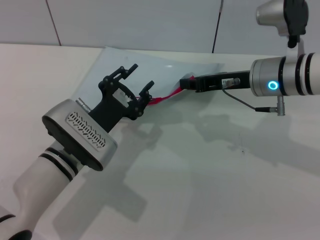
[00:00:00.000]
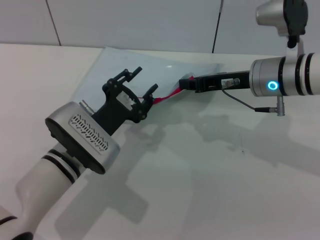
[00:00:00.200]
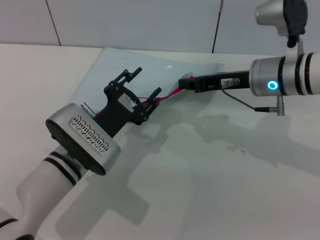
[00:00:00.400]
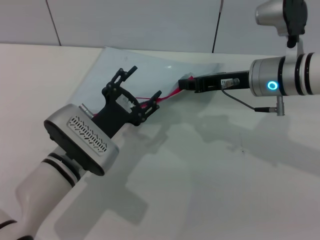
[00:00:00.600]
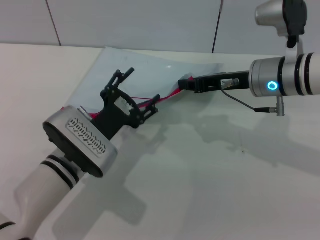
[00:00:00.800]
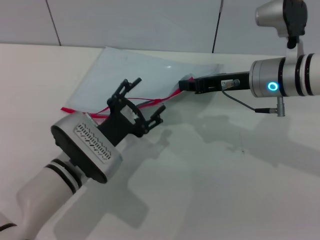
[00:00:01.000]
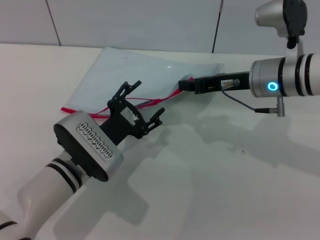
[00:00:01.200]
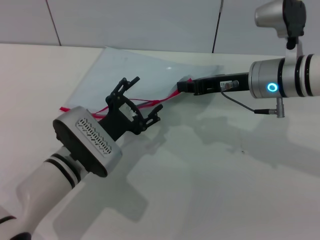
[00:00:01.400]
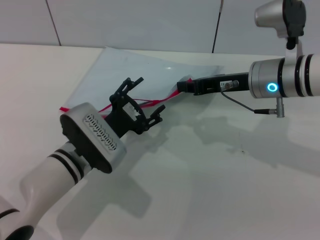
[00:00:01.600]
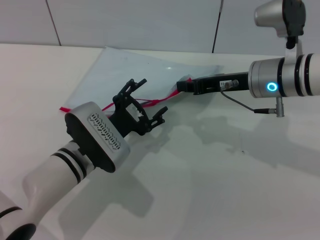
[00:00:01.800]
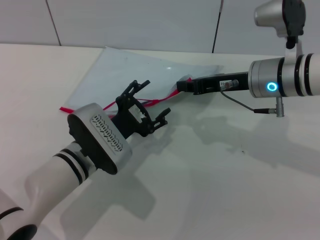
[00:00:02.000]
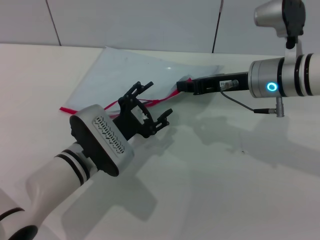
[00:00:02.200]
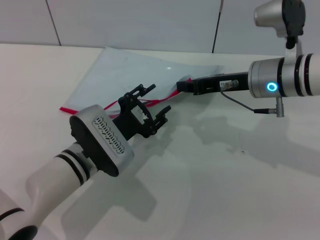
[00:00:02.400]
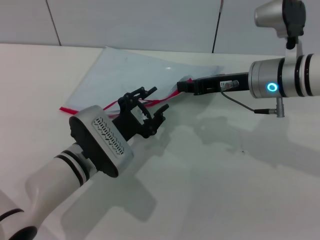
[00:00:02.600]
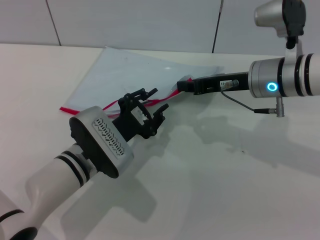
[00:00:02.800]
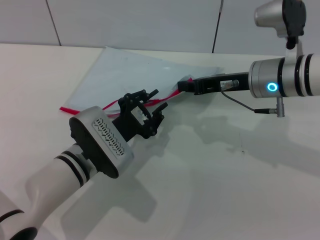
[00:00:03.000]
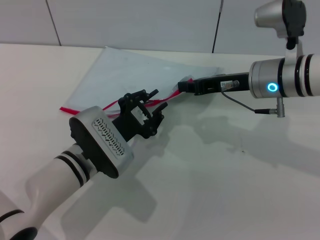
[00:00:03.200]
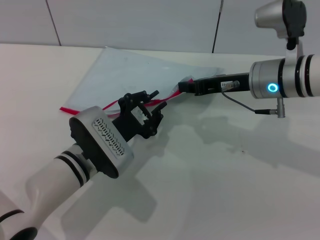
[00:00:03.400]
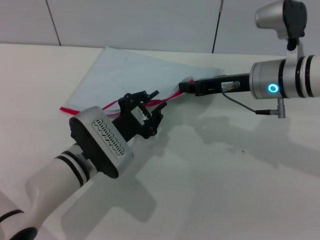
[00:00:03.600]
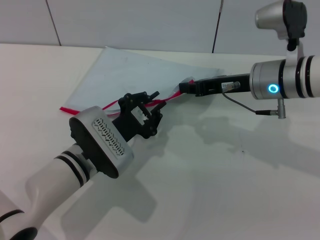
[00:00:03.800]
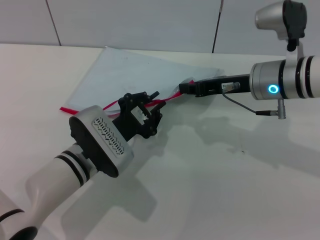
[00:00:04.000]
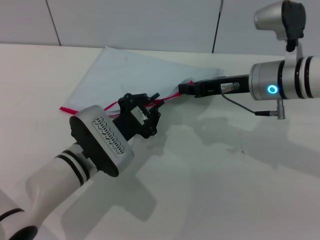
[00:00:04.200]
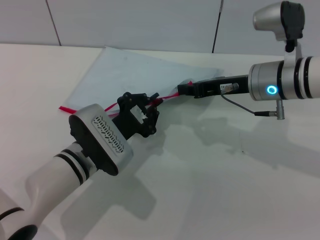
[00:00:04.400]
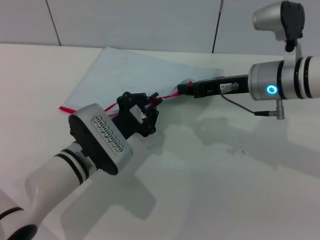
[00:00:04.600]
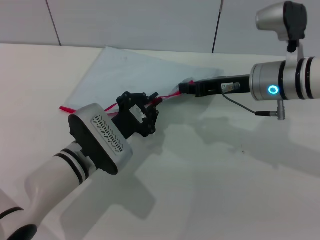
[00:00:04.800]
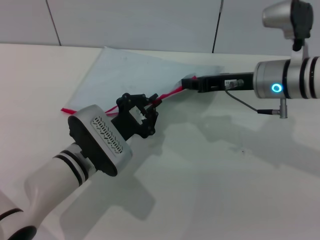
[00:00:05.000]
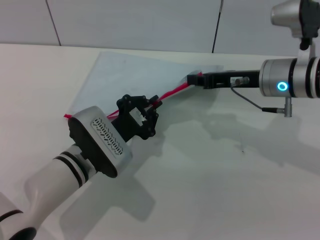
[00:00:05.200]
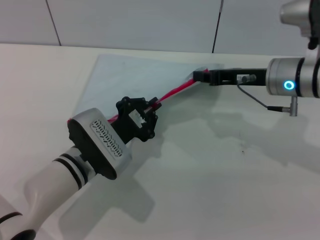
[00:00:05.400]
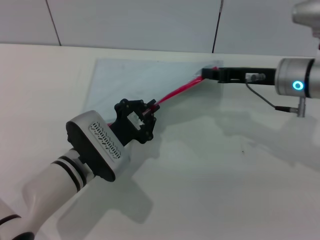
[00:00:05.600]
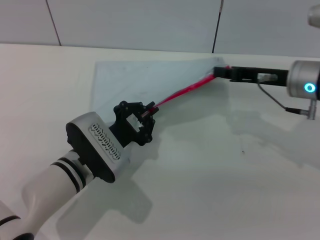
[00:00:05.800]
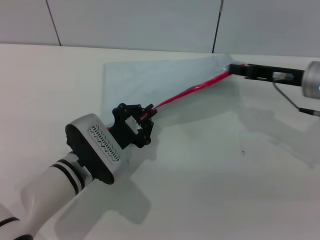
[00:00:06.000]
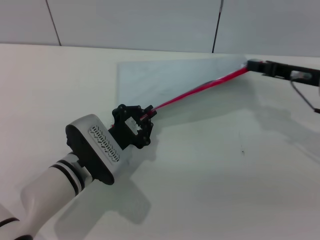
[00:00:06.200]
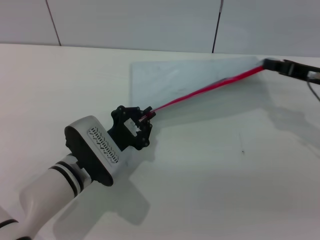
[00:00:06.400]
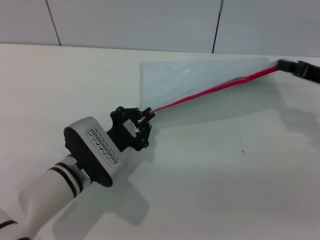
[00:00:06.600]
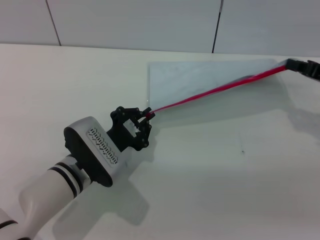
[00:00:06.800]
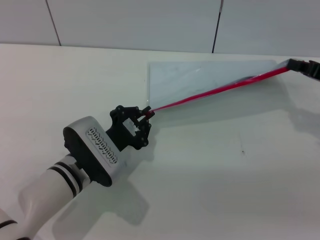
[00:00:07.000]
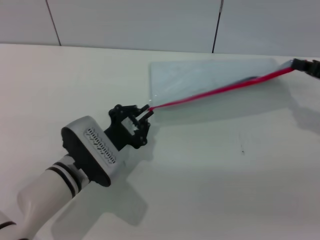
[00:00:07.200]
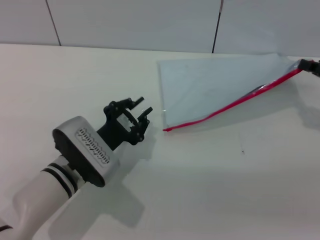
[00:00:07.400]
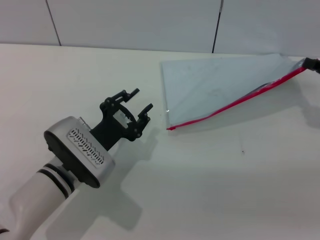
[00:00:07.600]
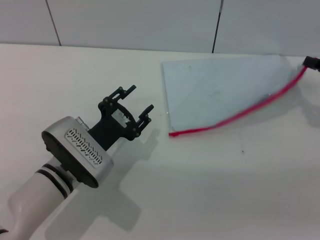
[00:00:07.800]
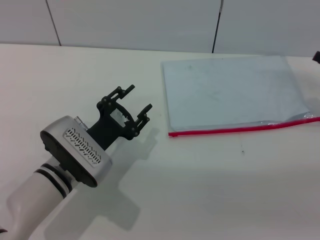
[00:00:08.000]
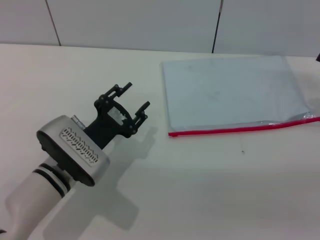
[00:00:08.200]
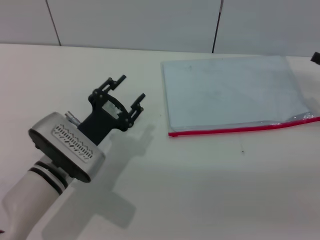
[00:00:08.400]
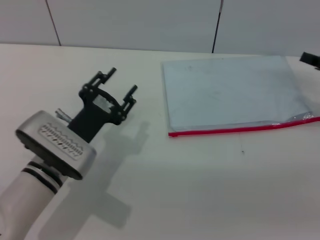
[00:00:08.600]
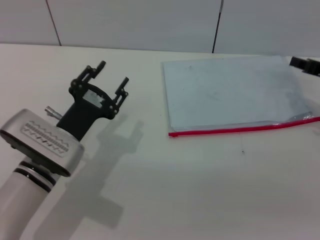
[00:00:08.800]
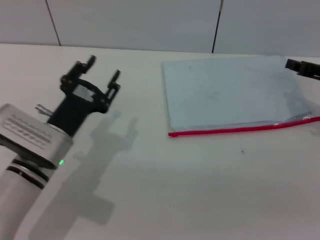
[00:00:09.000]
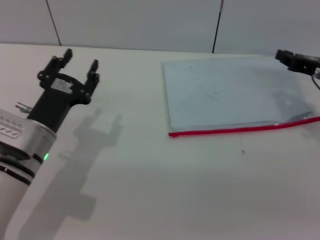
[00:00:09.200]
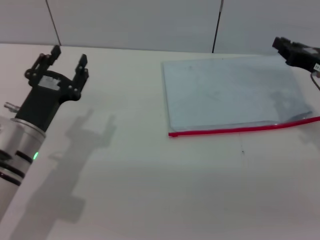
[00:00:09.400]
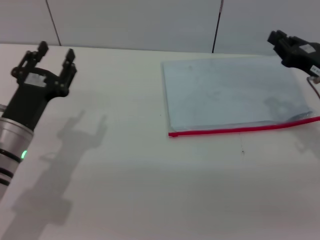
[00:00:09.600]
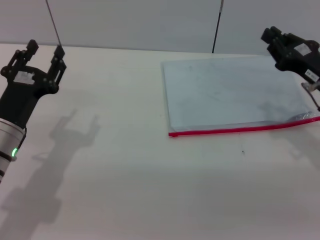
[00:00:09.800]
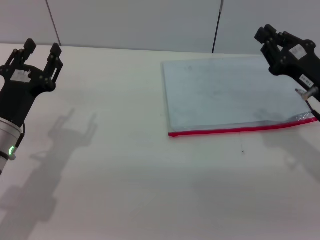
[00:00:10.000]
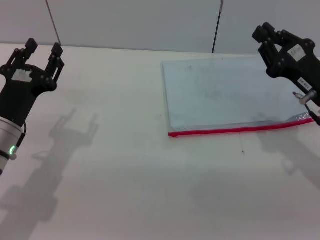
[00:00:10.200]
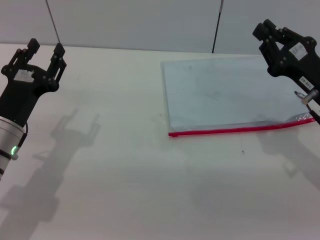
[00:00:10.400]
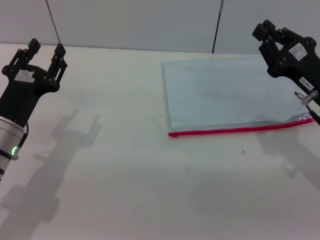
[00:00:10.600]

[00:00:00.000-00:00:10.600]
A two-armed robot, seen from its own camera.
Step, 00:00:00.000 to 00:00:07.200: Pulling up the zipper on the transparent plastic bag with the left gripper to close it.
Step, 00:00:07.600 to 00:00:08.200: Place the transparent plastic bag.
00:00:00.000 to 00:00:01.600: The left gripper opens.
00:00:01.600 to 00:00:03.000: The left gripper closes.
00:00:03.000 to 00:00:04.600: The left gripper closes up.
00:00:04.600 to 00:00:06.000: The right gripper is displaced to the right by some 10 cm.
00:00:06.000 to 00:00:07.600: The right gripper moves to the right, some 10 cm.
00:00:07.600 to 00:00:09.000: The left gripper opens its fingers.
00:00:09.000 to 00:00:10.600: The right gripper travels backward and to the left by roughly 10 cm. Meanwhile the left gripper moves to the left, about 5 cm.
